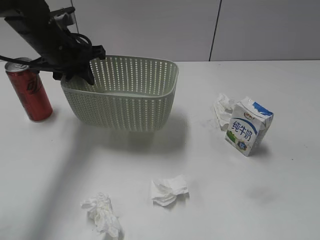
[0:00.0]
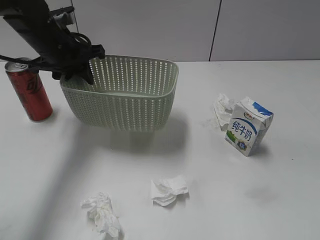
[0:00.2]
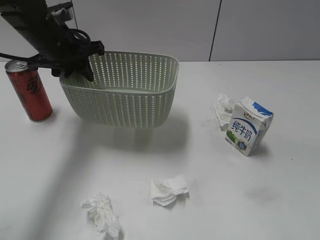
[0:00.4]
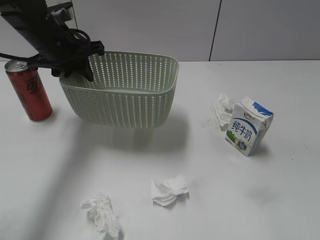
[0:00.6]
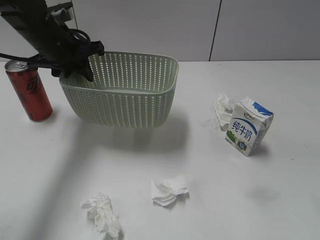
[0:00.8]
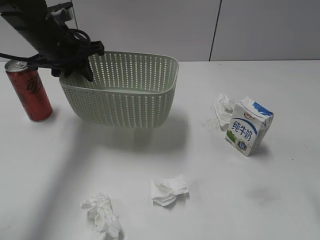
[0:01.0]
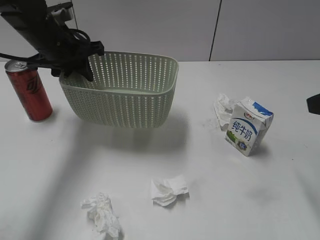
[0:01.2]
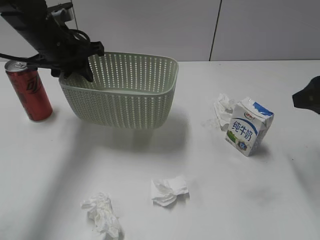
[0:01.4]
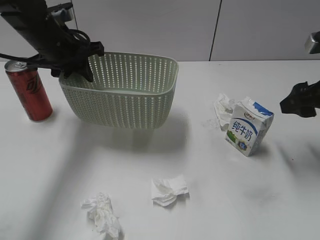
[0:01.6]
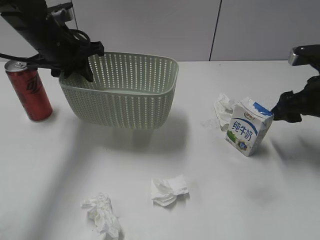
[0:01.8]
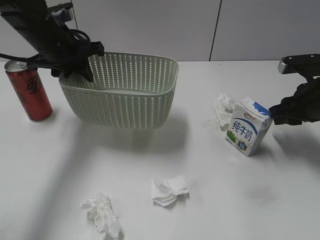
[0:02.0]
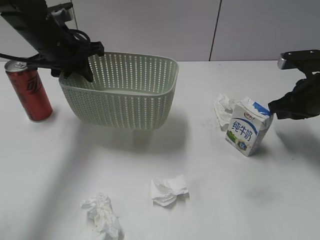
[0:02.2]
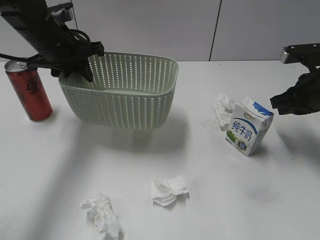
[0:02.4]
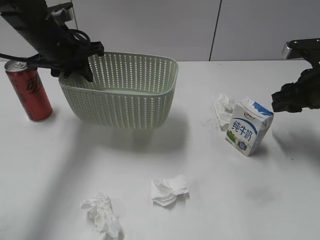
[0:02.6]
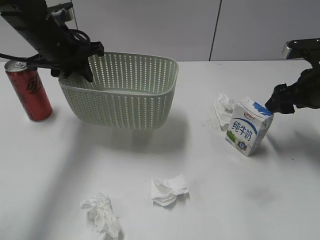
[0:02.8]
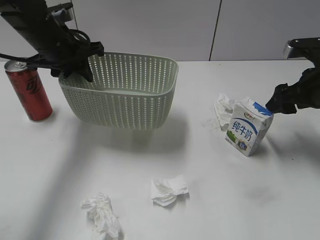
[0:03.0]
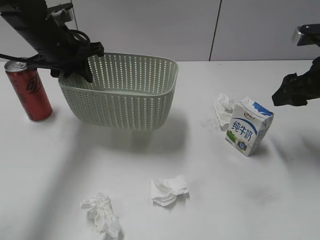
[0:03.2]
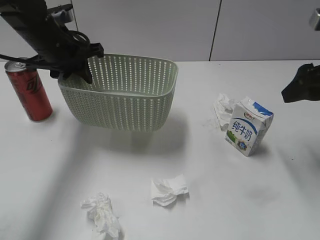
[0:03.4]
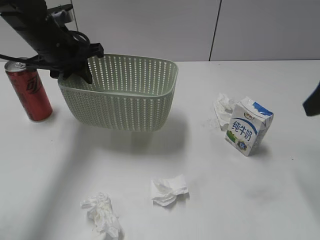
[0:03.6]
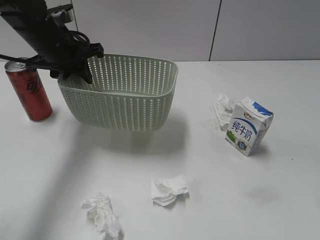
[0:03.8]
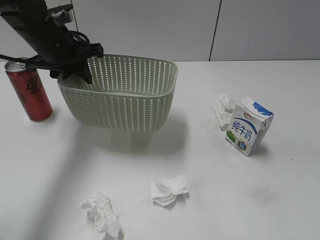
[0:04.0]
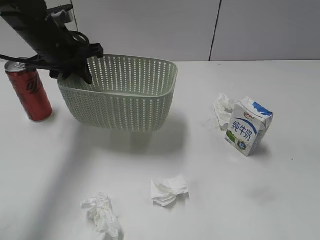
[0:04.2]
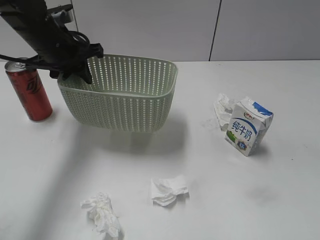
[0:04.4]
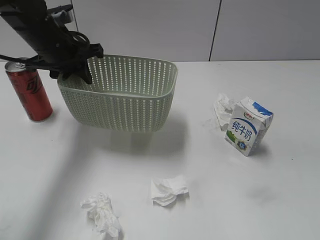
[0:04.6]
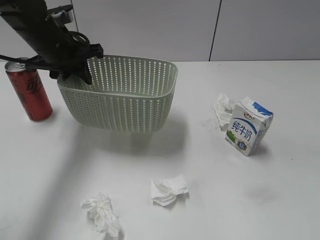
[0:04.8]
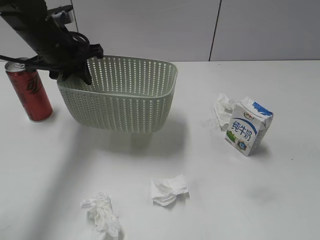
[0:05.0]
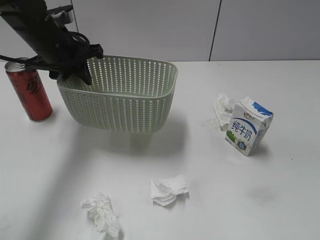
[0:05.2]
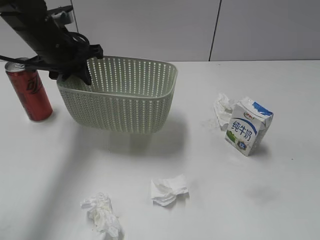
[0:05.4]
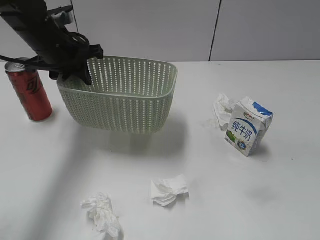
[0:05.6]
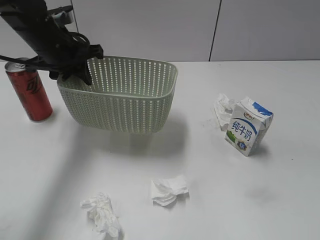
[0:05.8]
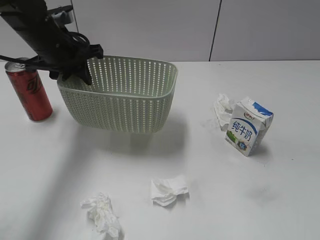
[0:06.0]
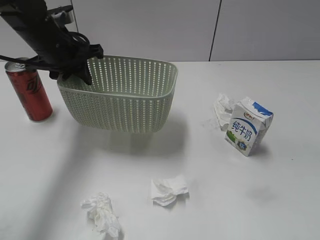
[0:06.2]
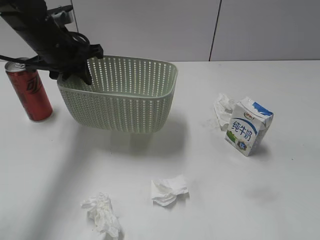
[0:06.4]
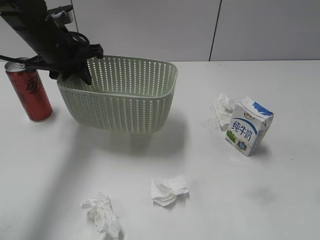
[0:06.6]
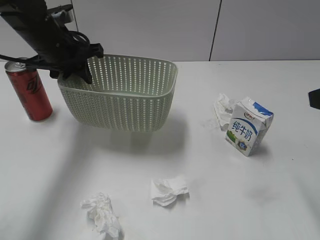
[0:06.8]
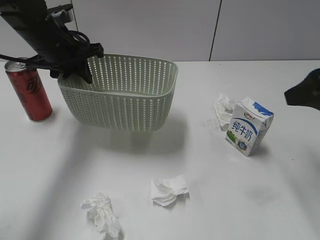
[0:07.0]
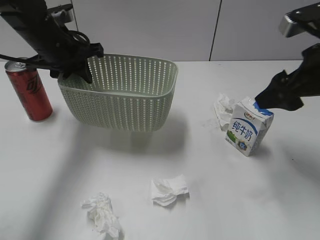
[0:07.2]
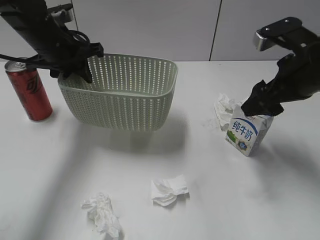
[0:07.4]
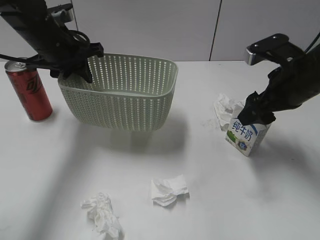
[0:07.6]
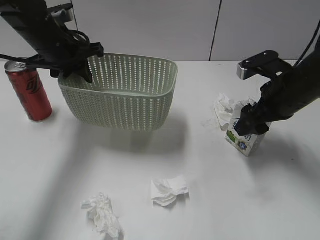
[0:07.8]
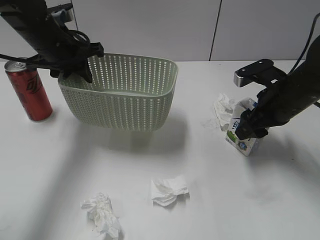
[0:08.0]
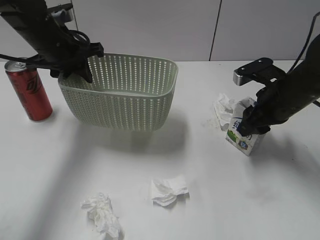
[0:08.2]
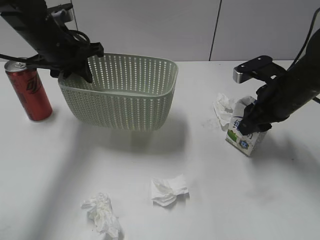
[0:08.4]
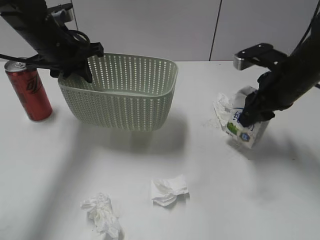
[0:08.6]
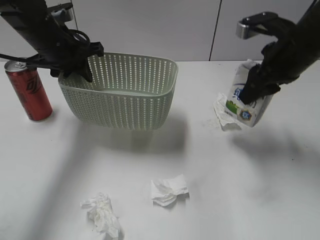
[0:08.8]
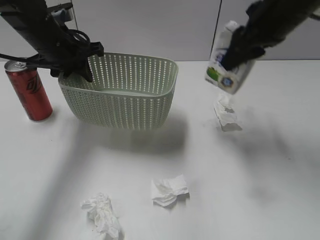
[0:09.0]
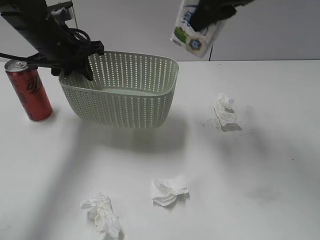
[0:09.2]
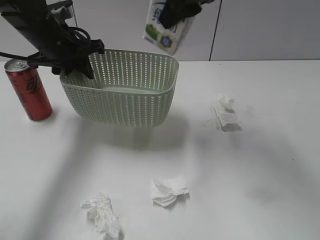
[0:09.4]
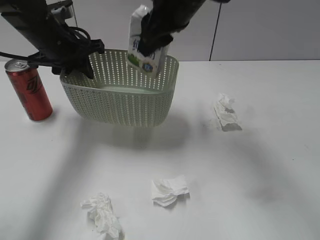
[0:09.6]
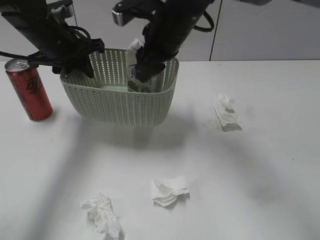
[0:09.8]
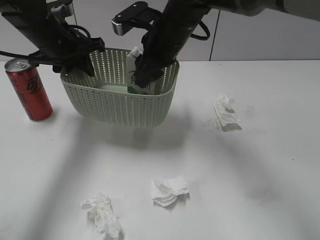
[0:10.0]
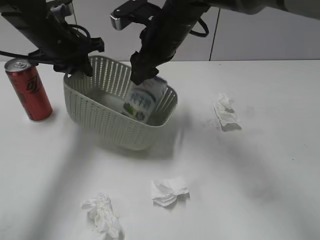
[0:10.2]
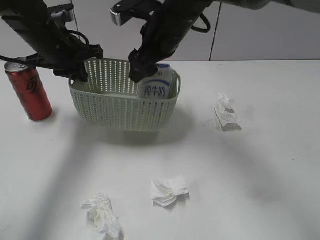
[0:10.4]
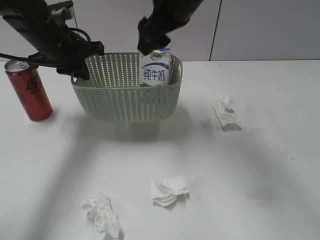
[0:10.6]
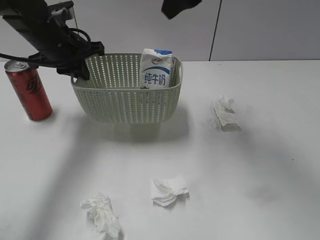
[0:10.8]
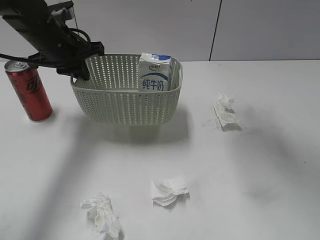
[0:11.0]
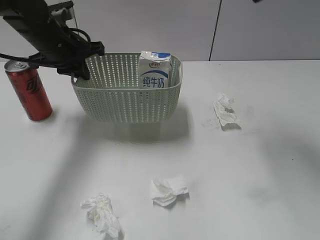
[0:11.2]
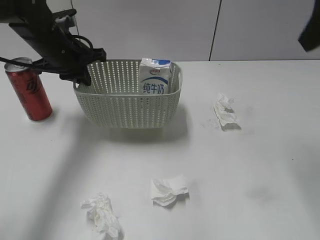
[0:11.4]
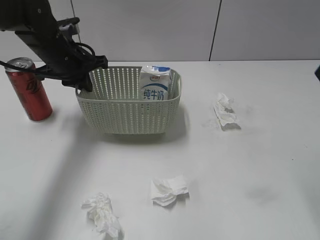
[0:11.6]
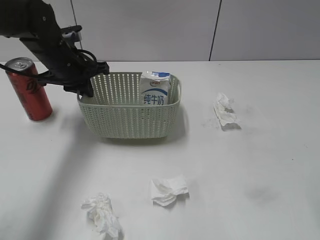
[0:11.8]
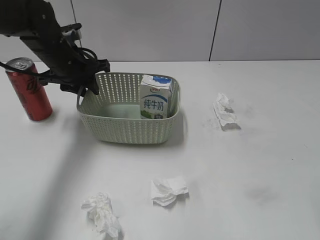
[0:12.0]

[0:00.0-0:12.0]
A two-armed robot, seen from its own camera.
Step, 0:01.2 to 0:08.2: Grasp the milk with right gripper.
Step, 0:08.4 to 0:10.6: Place the milk in the basket with right gripper.
0:00.0 to 0:01.6: The right gripper goes roughly 30 cm forward.
0:01.6 to 0:03.0: The right gripper ends up about 5 cm from where it was, and closes and opens again.
0:03.0 to 0:04.4: The right gripper goes approximately 30 cm backward and upward.
0:06.0 to 0:07.6: The right gripper moves forward, roughly 30 cm.
0:07.6 to 0:09.0: The right gripper travels upward by some 10 cm, and closes its fingers.
0:09.0 to 0:10.4: The right gripper goes some 15 cm to the left, and opens its fingers.
0:10.4 to 0:12.0: The right gripper moves to the right, backward and upward, roughly 35 cm.

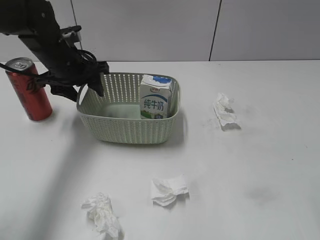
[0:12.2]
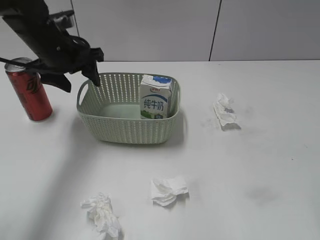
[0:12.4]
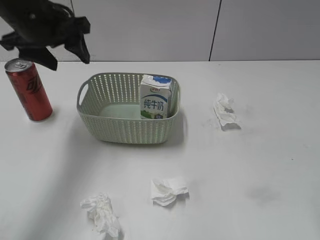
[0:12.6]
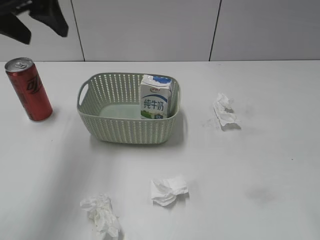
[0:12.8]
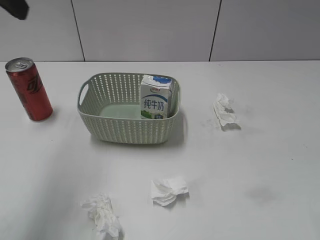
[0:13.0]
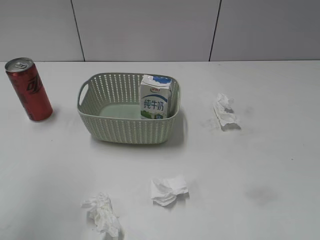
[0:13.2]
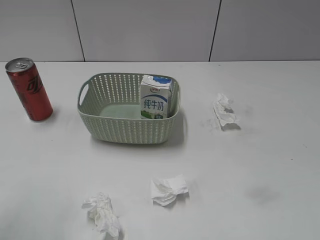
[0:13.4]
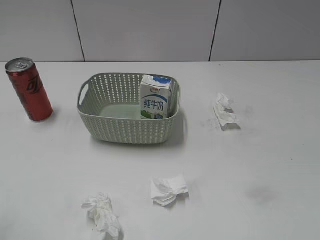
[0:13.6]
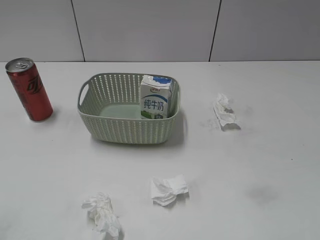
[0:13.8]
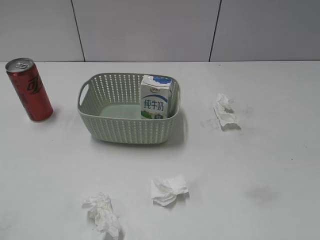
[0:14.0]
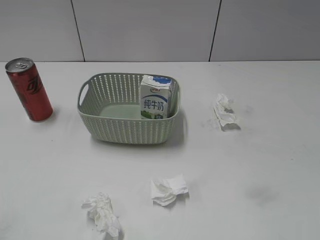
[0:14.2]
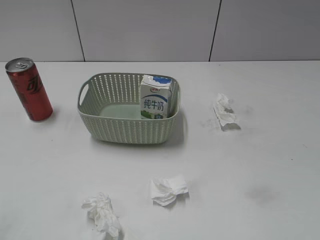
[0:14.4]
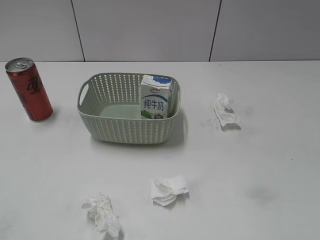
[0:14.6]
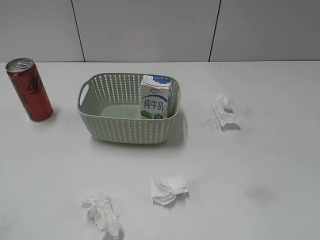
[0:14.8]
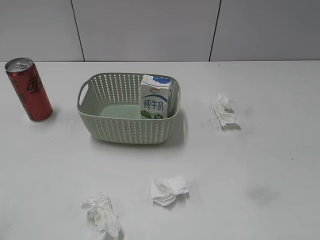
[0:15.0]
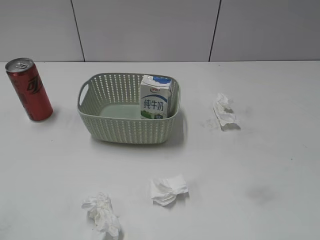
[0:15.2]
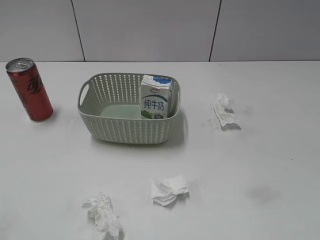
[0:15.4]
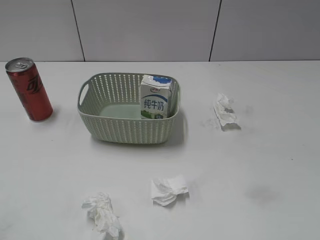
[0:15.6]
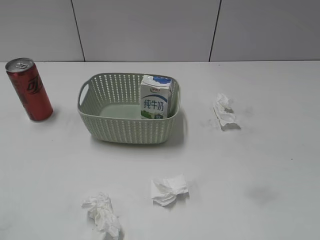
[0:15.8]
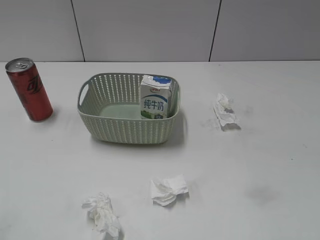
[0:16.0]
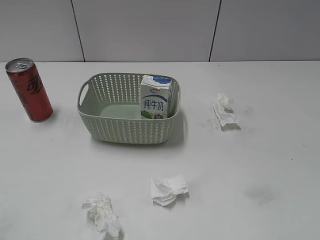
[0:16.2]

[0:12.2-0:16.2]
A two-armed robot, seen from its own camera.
0:12.2 to 0:13.6: The left gripper travels backward and upward by roughly 40 cm.

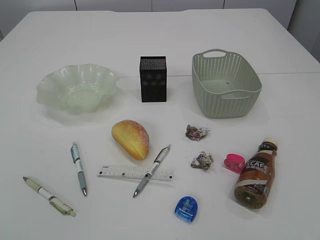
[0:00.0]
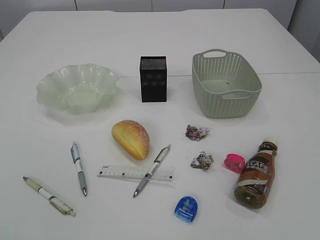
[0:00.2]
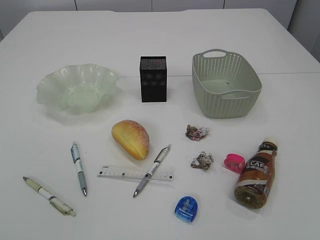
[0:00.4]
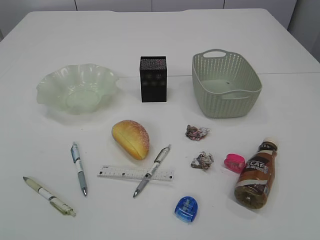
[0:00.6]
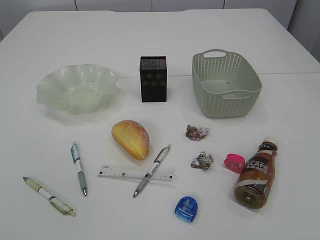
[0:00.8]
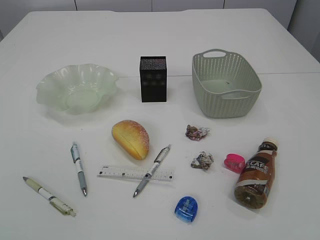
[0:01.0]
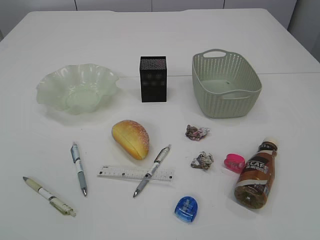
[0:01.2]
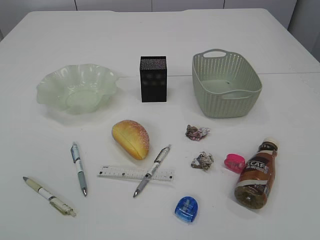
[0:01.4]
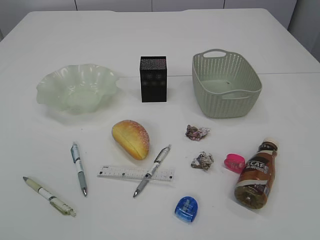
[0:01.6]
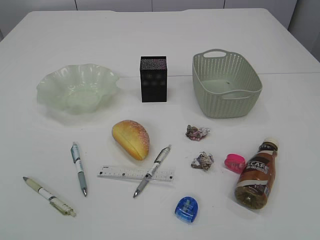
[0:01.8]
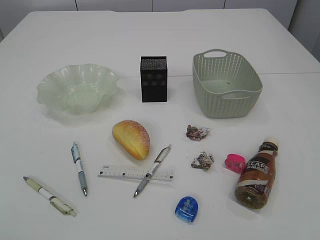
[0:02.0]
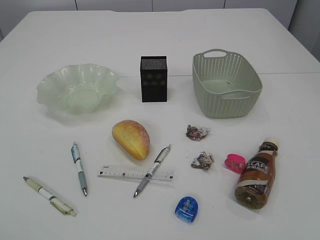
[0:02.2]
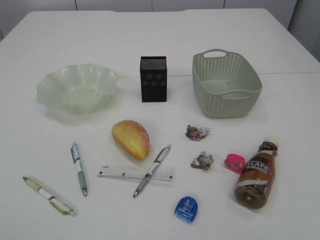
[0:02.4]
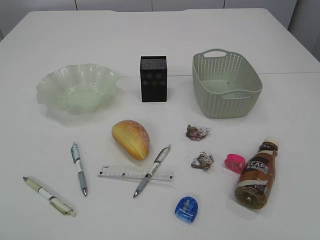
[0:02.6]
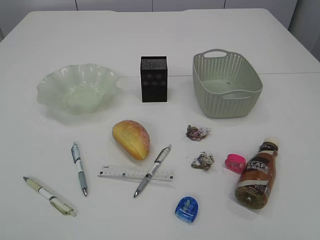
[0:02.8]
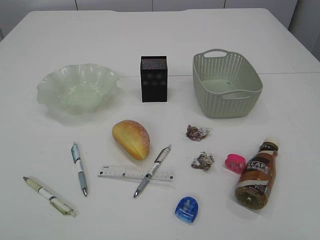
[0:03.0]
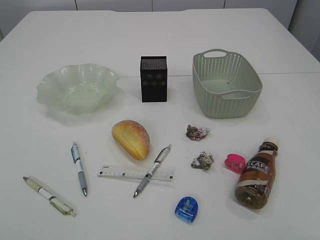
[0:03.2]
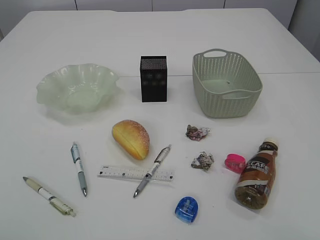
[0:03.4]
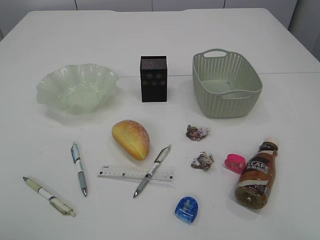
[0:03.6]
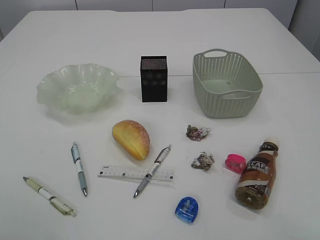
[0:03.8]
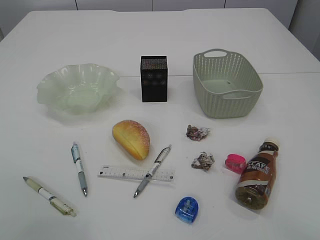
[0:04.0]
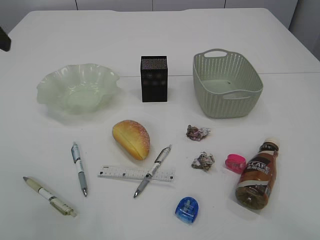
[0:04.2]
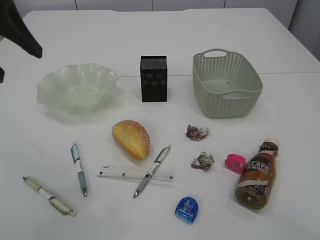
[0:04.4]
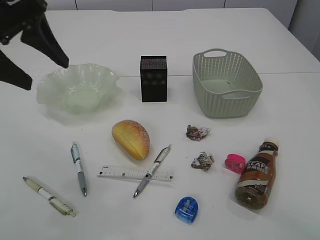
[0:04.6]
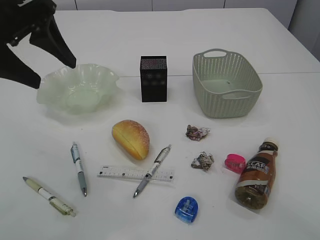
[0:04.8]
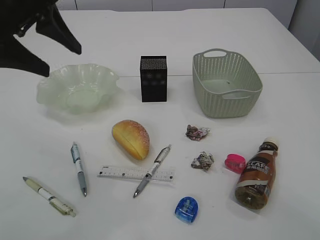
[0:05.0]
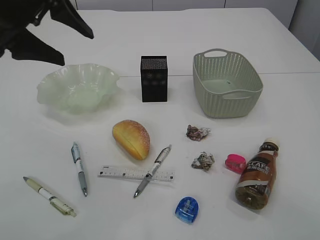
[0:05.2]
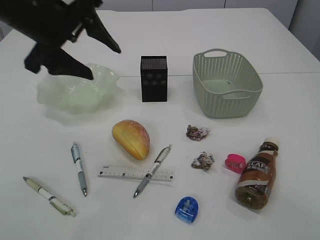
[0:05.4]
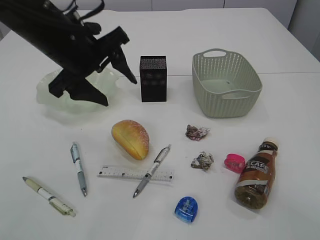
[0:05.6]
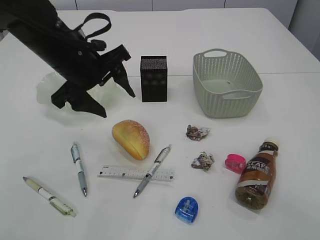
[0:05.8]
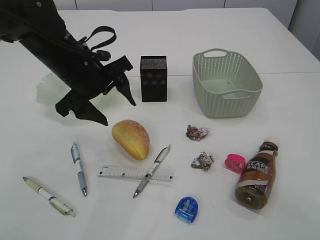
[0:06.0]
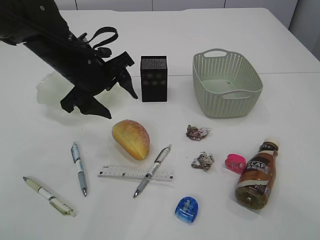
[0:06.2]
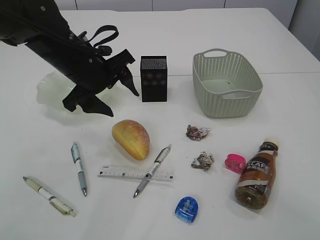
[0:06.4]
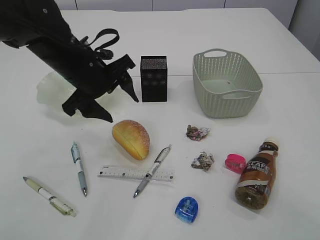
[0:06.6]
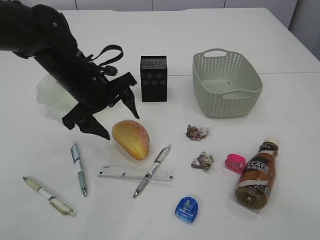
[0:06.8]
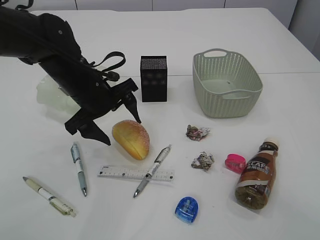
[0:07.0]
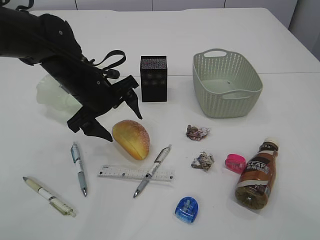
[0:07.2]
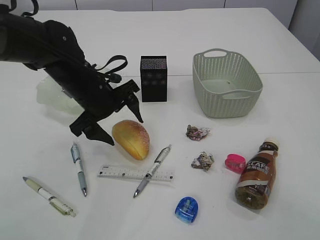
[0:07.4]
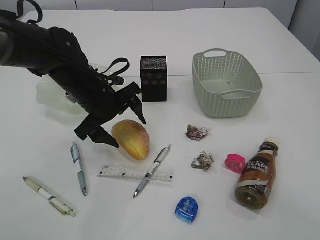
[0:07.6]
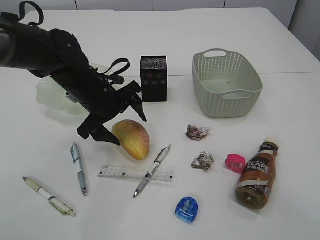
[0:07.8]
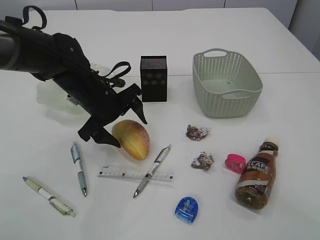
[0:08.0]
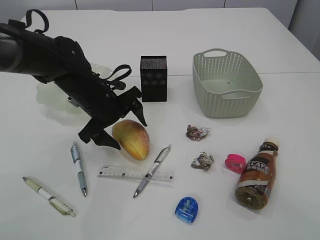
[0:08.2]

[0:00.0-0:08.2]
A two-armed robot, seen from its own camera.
0:03.2 to 0:05.0: The left gripper goes some 25 cm forward and to the right, and opens up.
0:05.0 to 0:06.6: The left gripper moves downward, to the right and forward, roughly 15 cm.
0:06.6 to 0:08.2: The left gripper heads downward, covering roughly 5 cm.
